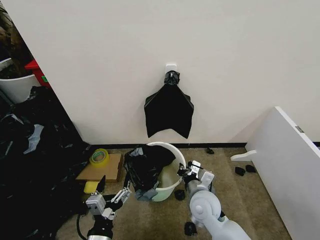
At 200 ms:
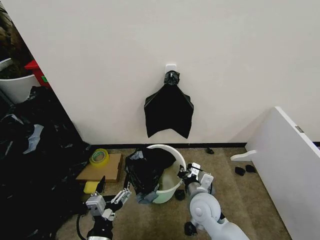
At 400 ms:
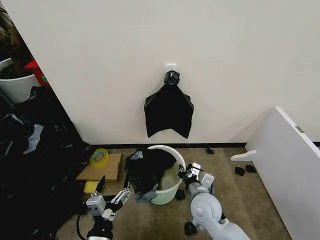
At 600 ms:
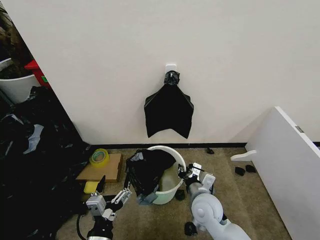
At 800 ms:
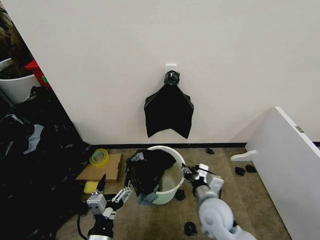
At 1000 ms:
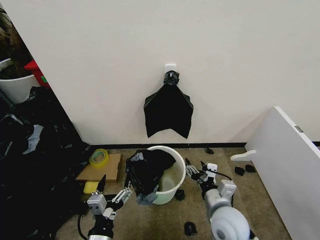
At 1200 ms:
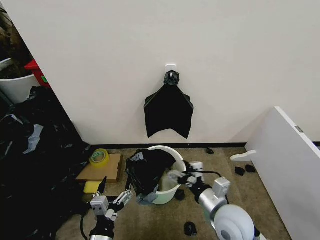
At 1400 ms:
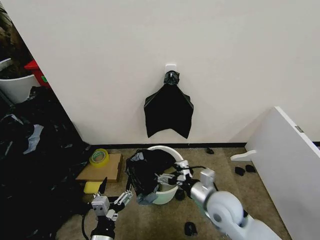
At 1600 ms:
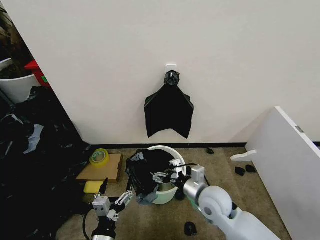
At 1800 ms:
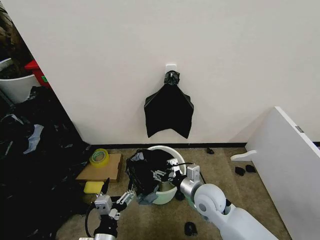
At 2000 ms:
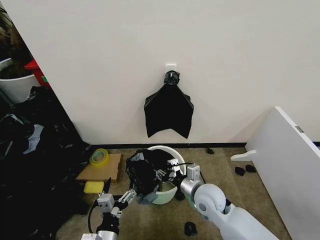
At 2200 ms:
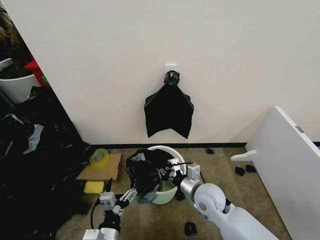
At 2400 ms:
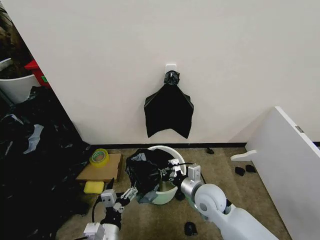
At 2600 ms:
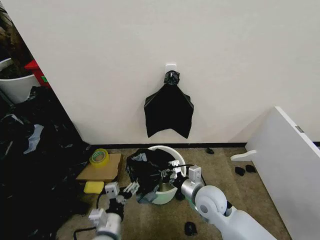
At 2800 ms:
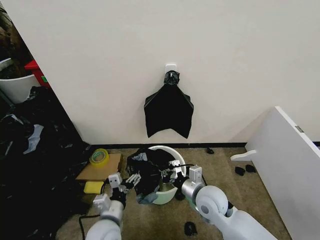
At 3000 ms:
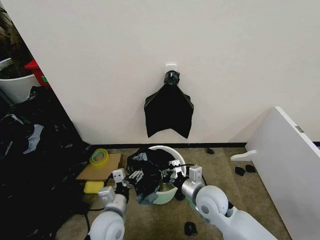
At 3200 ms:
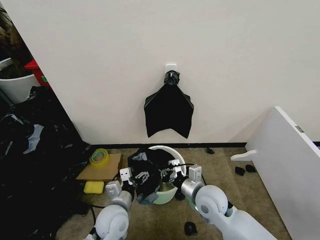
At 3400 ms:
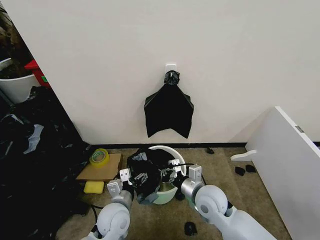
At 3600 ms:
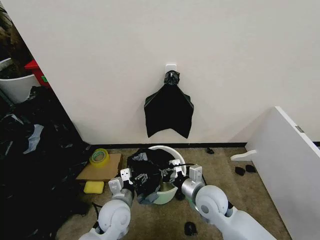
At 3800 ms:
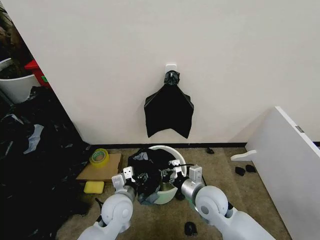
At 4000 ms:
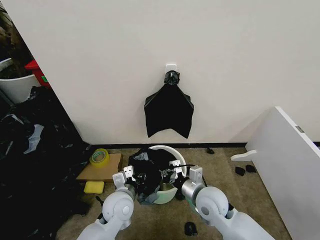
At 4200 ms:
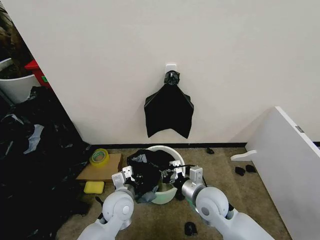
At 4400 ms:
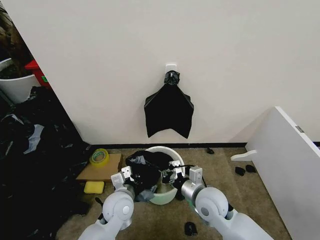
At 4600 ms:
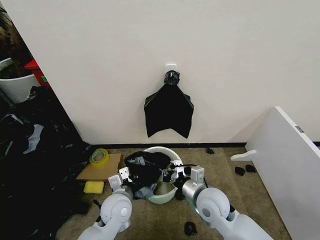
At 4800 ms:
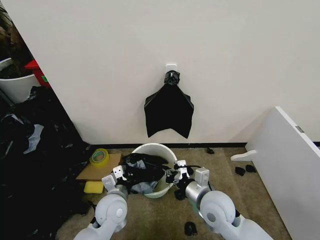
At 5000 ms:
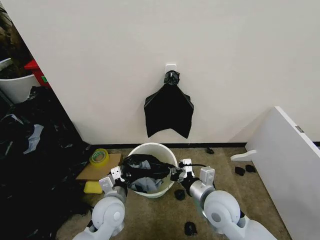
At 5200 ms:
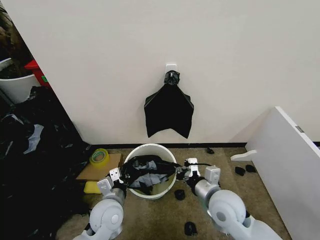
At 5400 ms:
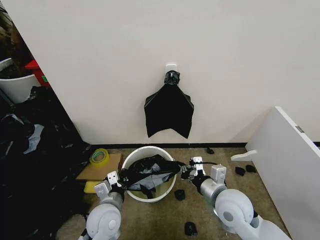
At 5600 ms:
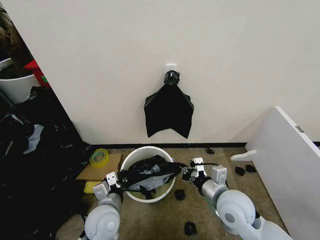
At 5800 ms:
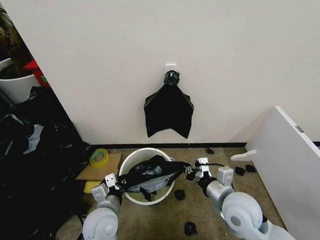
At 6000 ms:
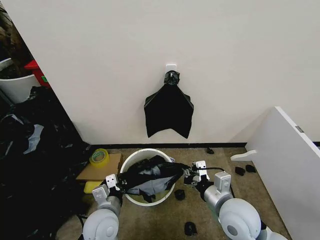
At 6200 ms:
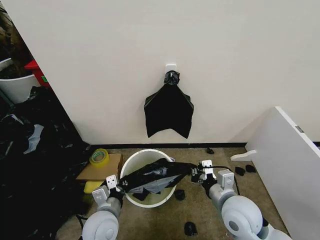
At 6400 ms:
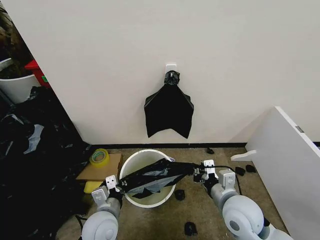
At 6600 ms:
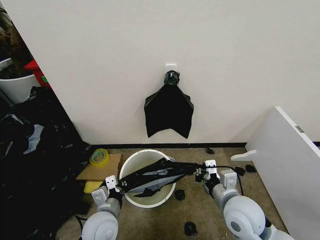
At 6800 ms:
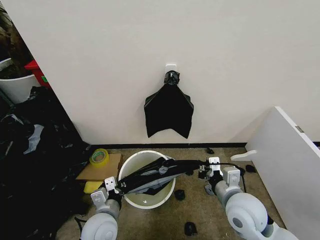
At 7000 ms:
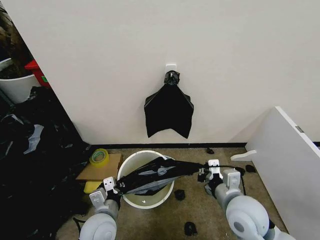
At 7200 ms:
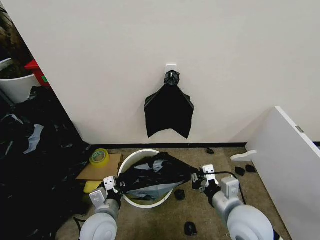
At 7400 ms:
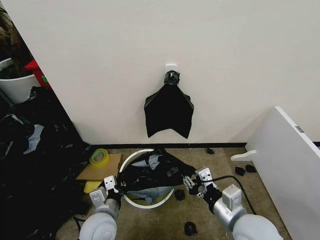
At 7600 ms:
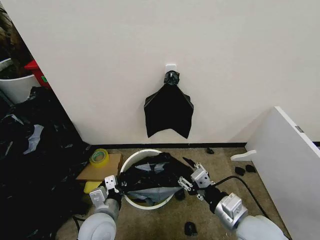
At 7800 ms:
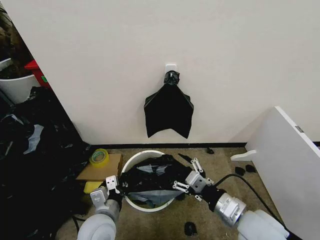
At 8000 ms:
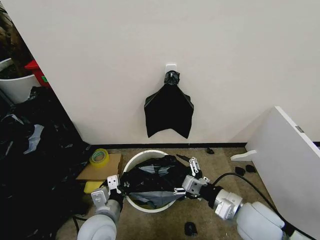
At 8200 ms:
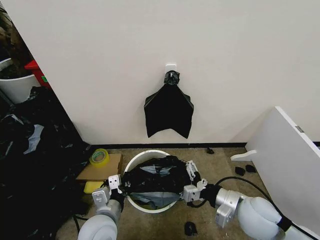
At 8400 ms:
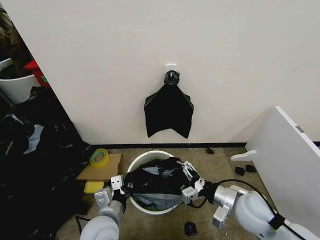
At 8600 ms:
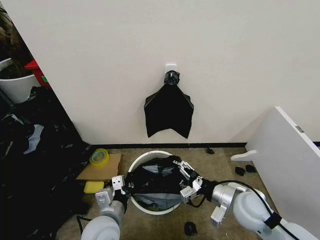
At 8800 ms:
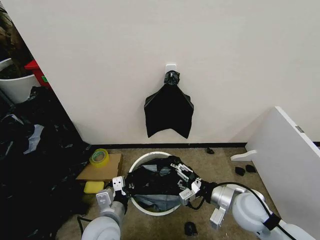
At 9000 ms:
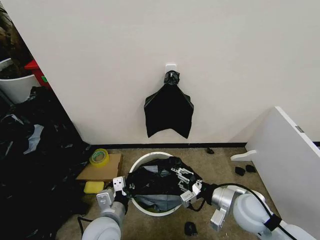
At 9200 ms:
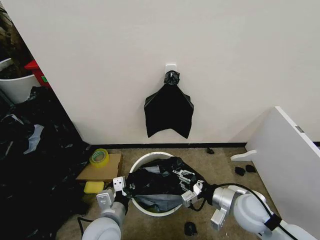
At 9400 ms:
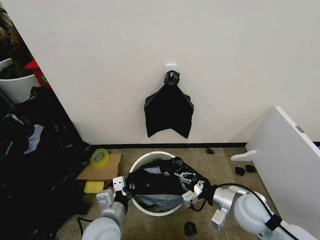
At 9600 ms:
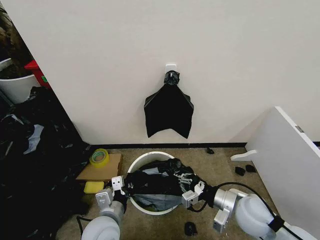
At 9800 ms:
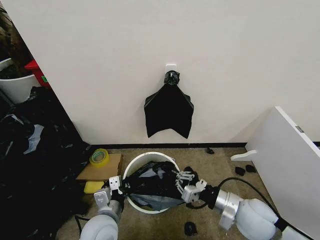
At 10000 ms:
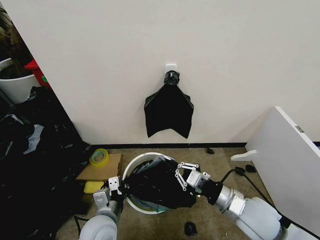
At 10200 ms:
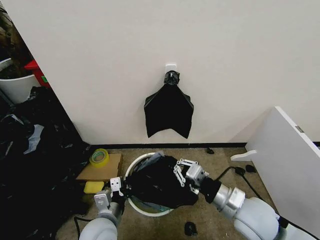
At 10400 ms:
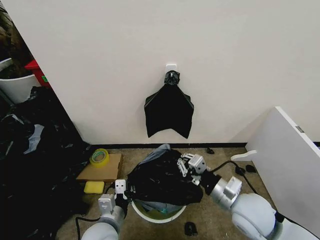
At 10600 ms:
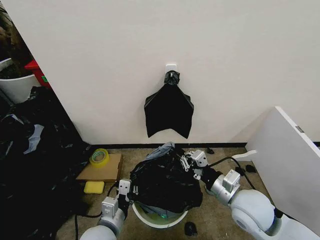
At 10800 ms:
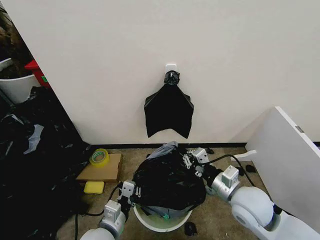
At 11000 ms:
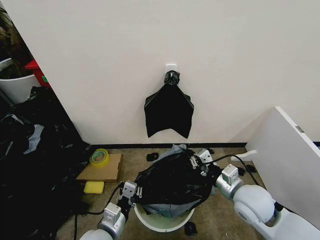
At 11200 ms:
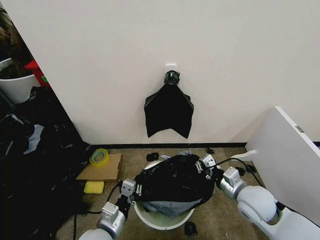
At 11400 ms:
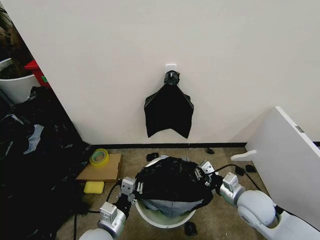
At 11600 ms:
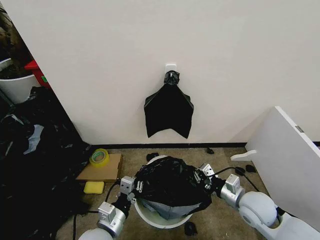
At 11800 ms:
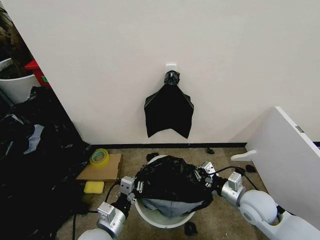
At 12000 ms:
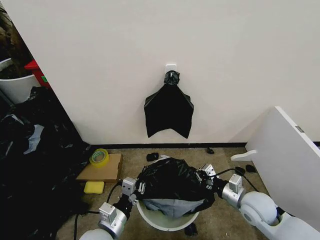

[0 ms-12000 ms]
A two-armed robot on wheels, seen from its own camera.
Task of the whole recording: Place the garbage bag over the trash bin.
0 ms to 1600 ms: The right gripper opens its fingers.
1600 ms to 3000 ms: The right gripper closes. Meanwhile the left gripper travels forward by some 10 cm.
3000 ms to 4400 ms: The left gripper shifts approximately 5 cm forward, and closes its fingers.
4400 ms to 6000 ms: The right gripper heads backward and upward, covering about 5 cm, while the left gripper is displaced backward by about 5 cm.
6000 ms to 7600 ms: The right gripper ends up about 5 cm from where it was, and opens its fingers.
7600 ms to 9000 ms: The right gripper goes about 5 cm forward, and opens, then closes again.
9000 ms to 10400 ms: The right gripper shifts by approximately 5 cm, and closes.
10400 ms to 12000 ms: The right gripper is displaced downward and to the right by roughly 10 cm.

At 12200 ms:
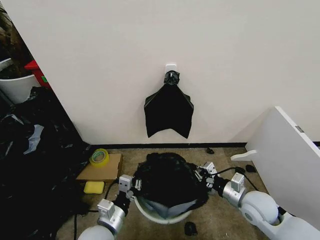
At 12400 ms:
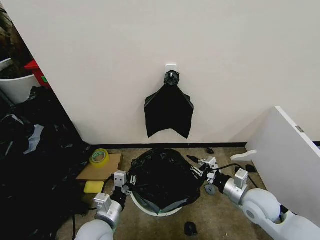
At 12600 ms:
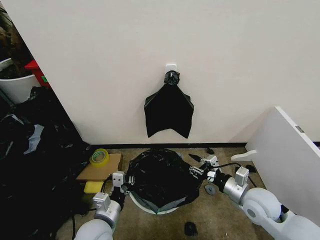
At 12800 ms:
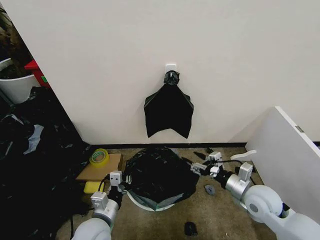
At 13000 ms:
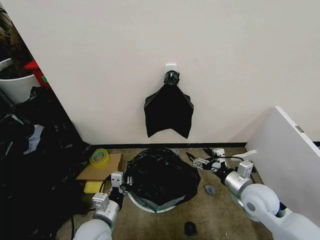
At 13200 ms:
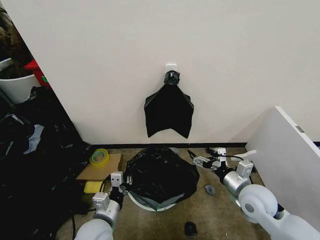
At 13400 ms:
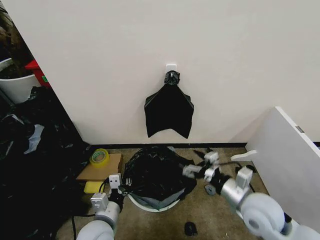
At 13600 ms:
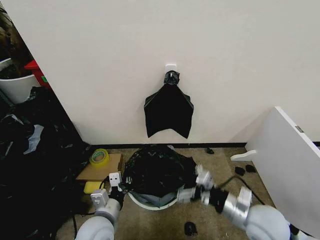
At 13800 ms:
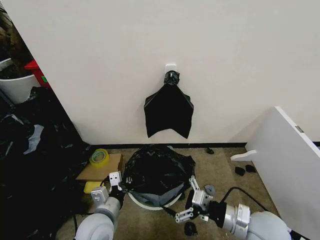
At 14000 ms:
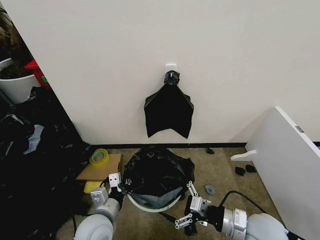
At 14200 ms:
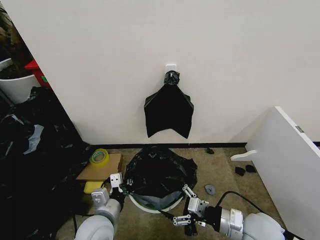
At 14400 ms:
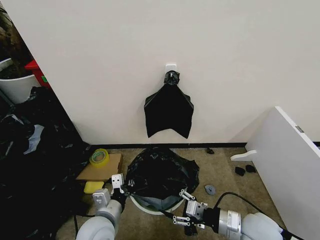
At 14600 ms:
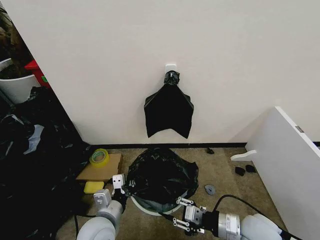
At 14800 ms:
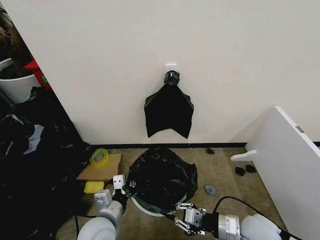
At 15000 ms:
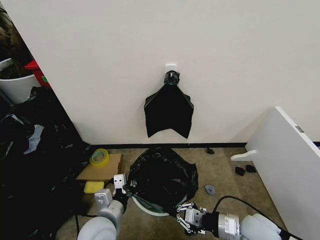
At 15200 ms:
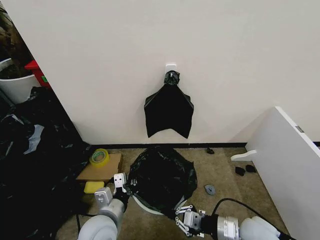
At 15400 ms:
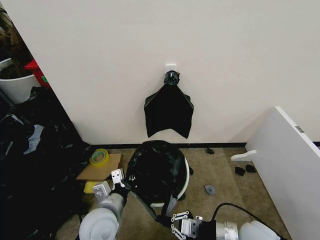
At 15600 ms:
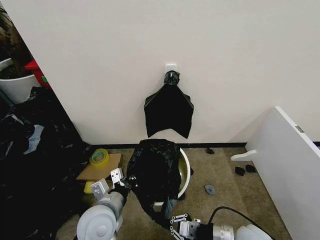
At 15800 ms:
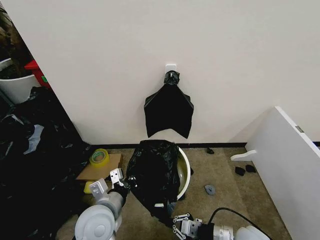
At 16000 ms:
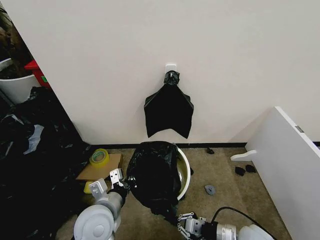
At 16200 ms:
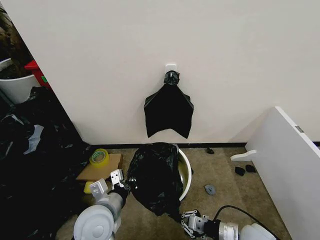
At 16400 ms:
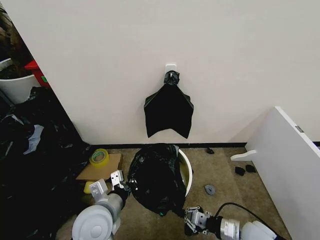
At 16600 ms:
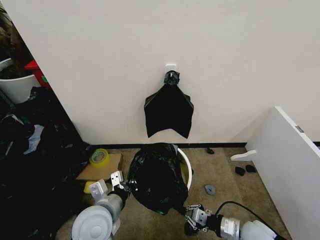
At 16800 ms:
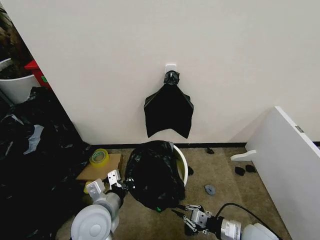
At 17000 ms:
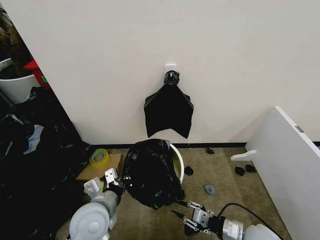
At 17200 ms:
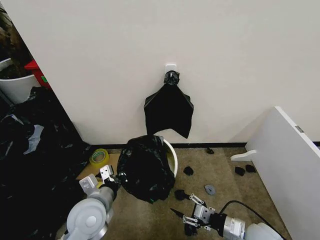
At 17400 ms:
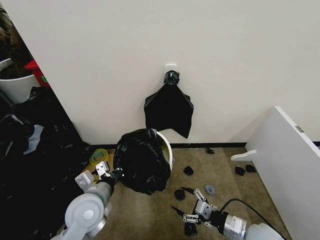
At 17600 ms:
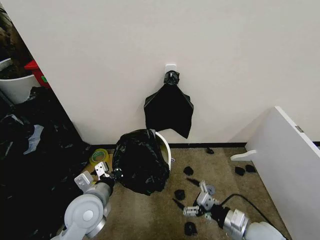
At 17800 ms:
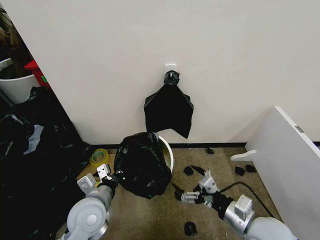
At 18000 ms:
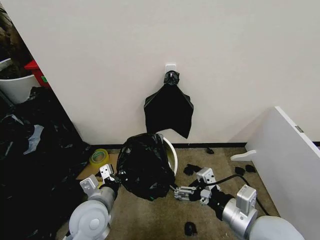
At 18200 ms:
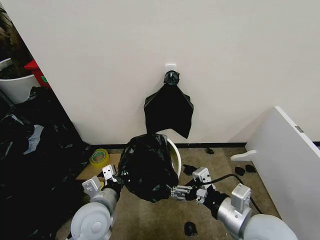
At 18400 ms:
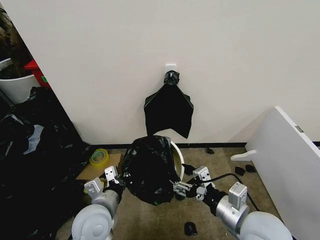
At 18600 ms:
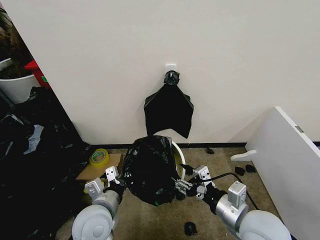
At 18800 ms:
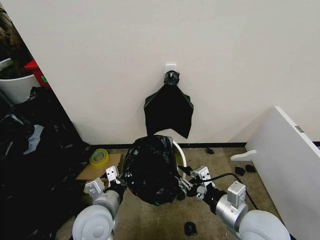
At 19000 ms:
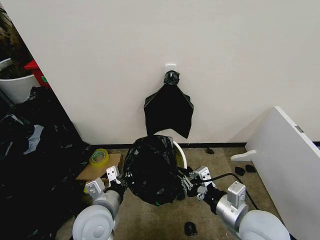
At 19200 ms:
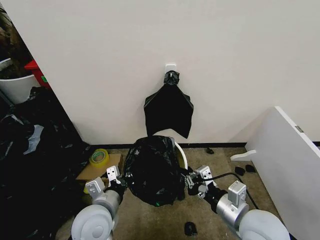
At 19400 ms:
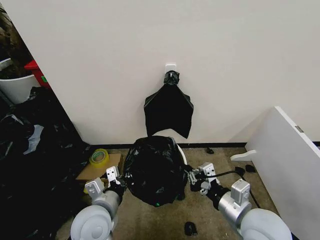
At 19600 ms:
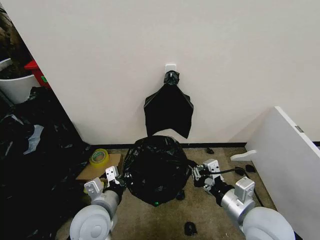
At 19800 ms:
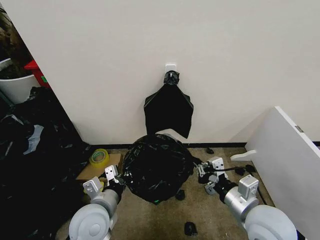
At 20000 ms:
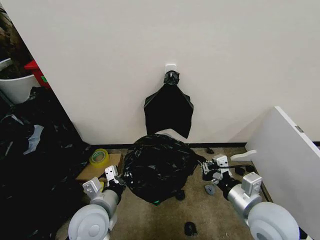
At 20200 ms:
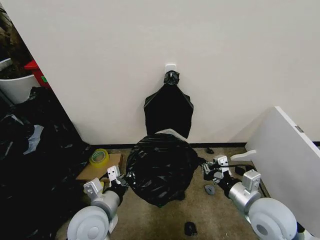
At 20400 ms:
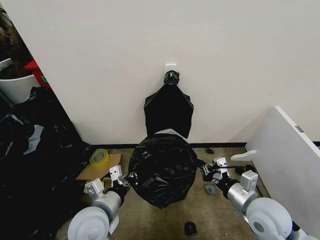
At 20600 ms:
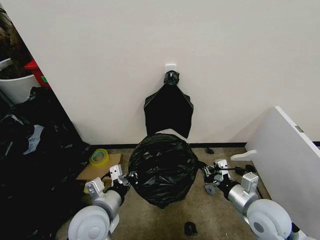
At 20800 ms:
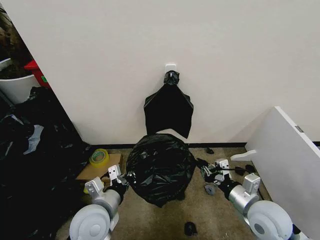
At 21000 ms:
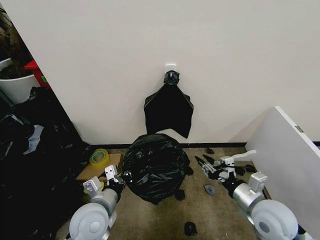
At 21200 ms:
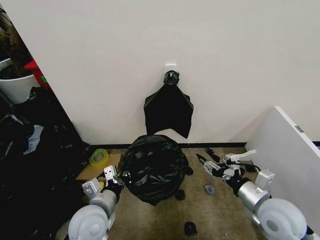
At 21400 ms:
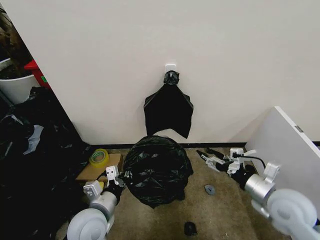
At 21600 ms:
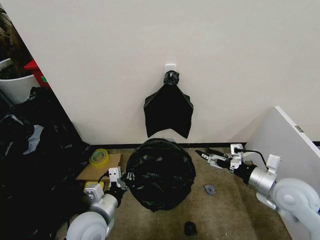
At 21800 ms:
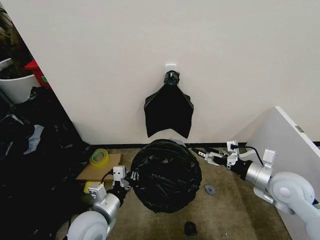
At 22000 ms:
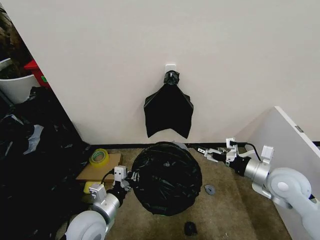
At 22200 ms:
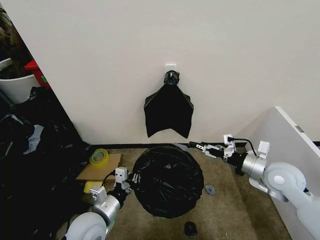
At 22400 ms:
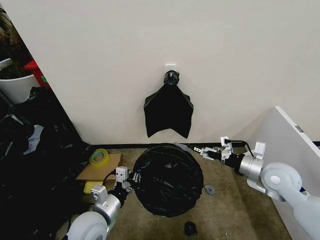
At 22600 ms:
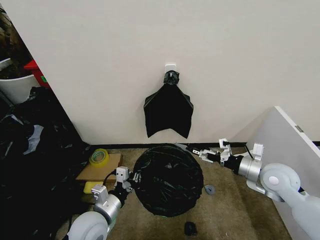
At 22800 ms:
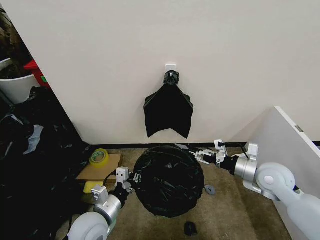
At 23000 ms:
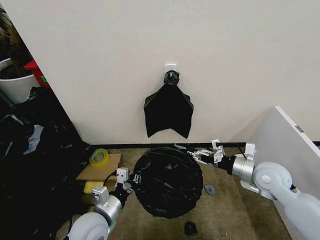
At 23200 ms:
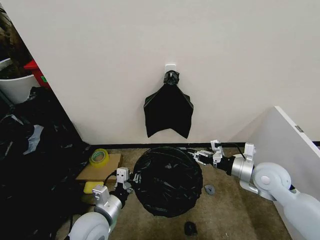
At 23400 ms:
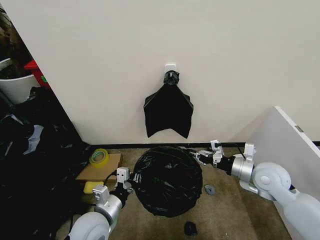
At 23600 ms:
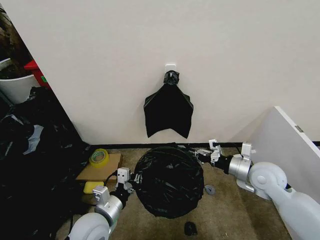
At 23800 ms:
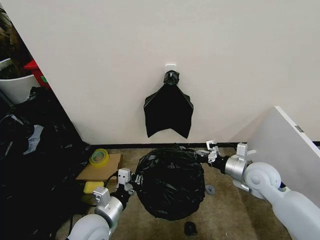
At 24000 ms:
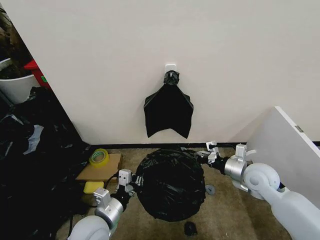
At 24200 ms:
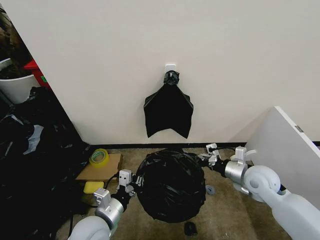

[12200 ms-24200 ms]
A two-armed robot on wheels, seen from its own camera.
Task of the whole recording: Place the garbage bag over the trash bin.
12200 ms to 13800 ms: The right gripper heads backward, covering about 5 cm, and opens its fingers.
13800 ms to 15200 ms: The right gripper closes up.
15200 ms to 16600 ms: The right gripper is displaced downward by roughly 5 cm.
16600 ms to 18200 ms: The right gripper heads upward and to the left, covering roughly 20 cm, and opens up.
18200 ms to 19800 ms: The right gripper closes its fingers.
19800 ms to 21200 ms: The right gripper goes approximately 5 cm to the right, and opens.
21200 ms to 22600 ms: The right gripper is displaced forward by some 10 cm.
22600 ms to 24200 ms: The right gripper closes its fingers.
